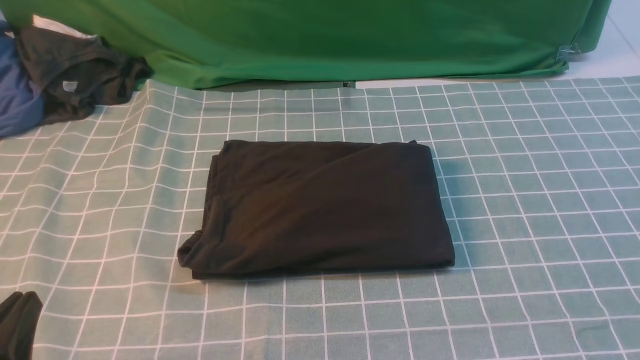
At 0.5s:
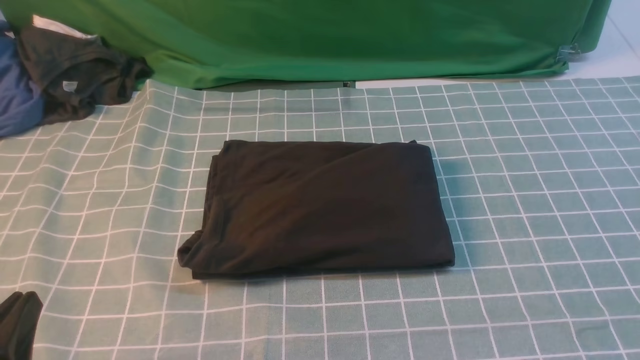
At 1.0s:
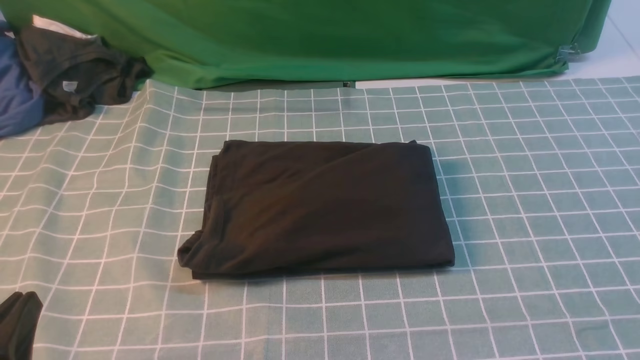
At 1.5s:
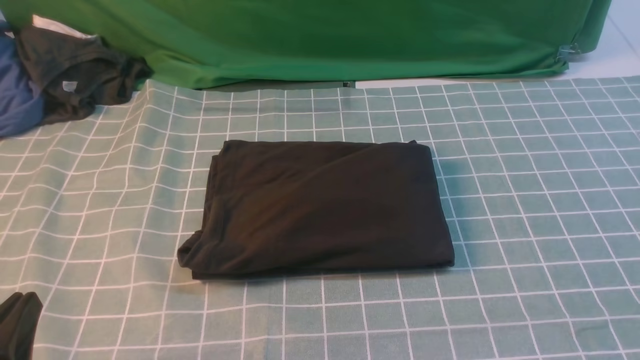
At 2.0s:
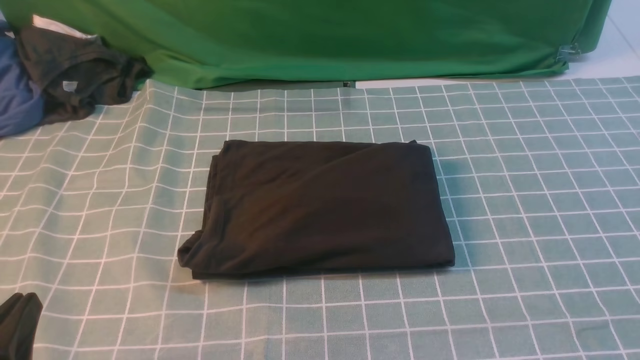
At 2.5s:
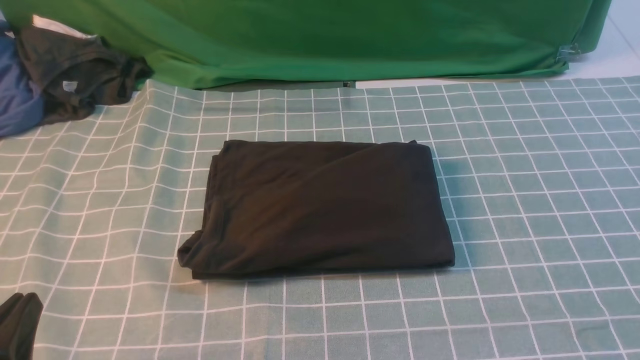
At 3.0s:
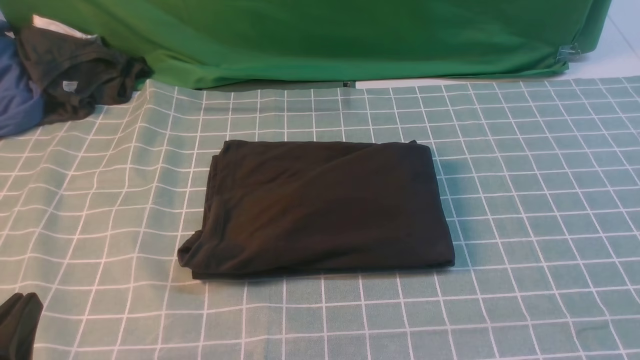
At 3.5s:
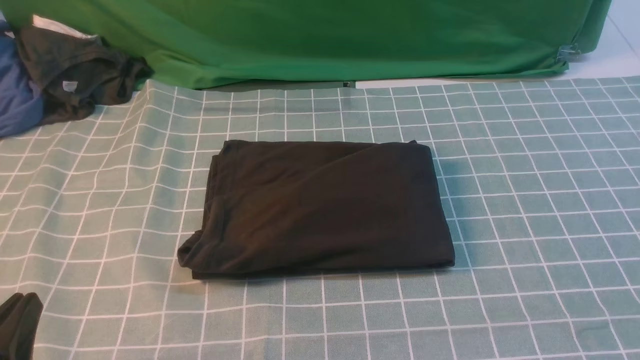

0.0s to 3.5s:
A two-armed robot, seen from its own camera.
2.0s to 3.5s: Both grippers stay put.

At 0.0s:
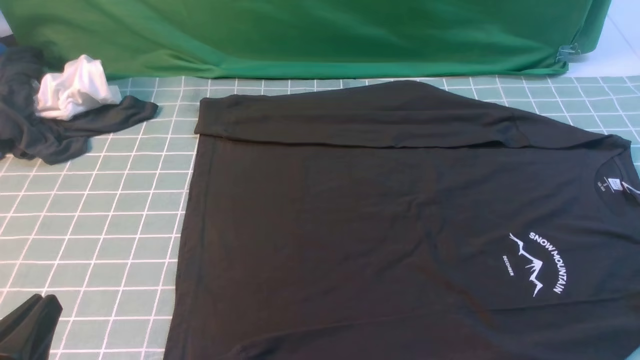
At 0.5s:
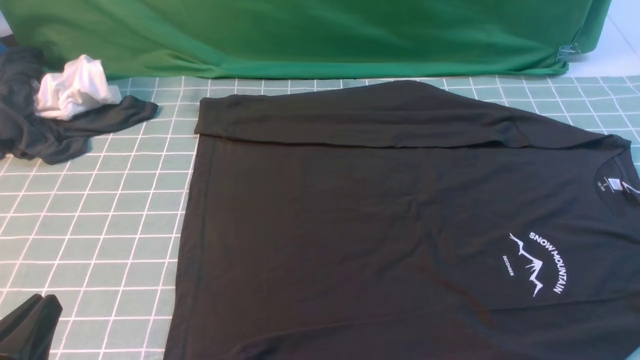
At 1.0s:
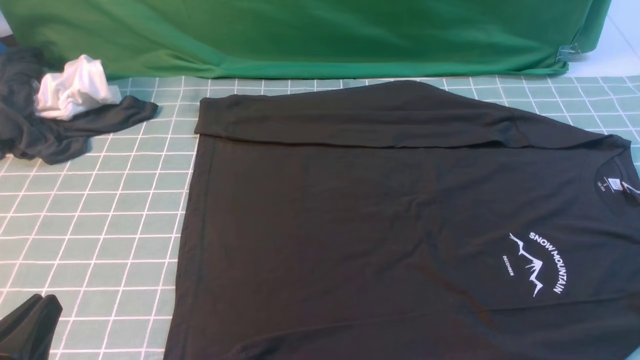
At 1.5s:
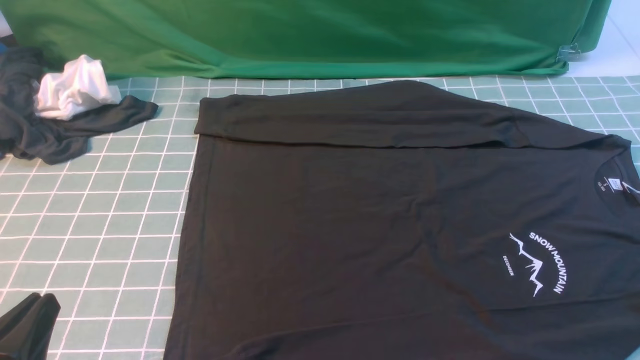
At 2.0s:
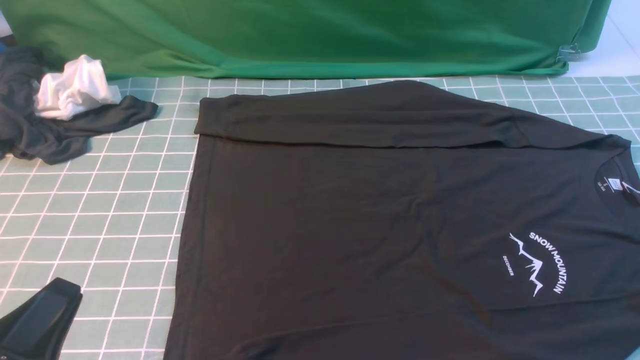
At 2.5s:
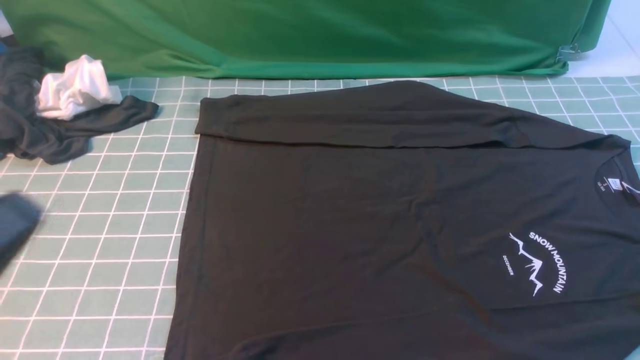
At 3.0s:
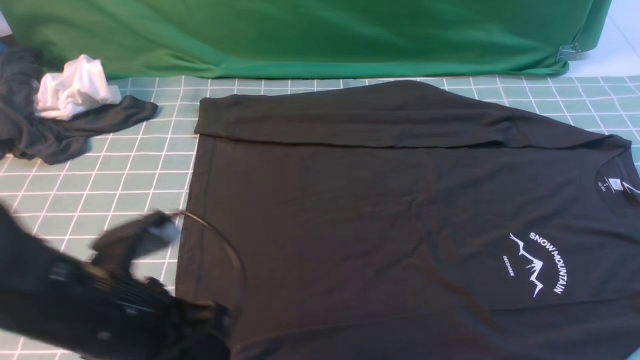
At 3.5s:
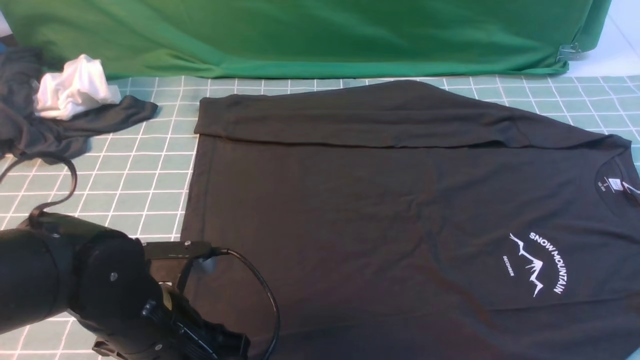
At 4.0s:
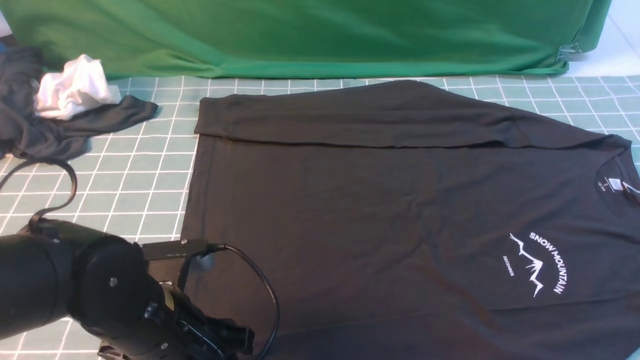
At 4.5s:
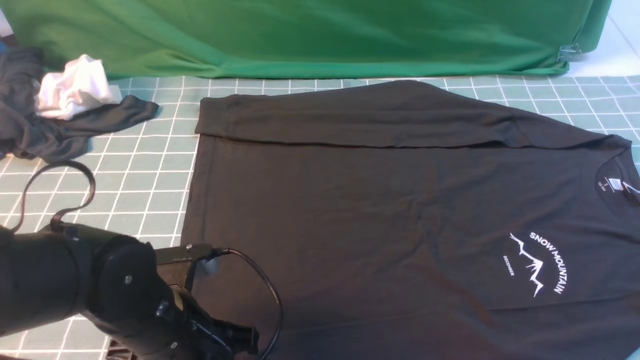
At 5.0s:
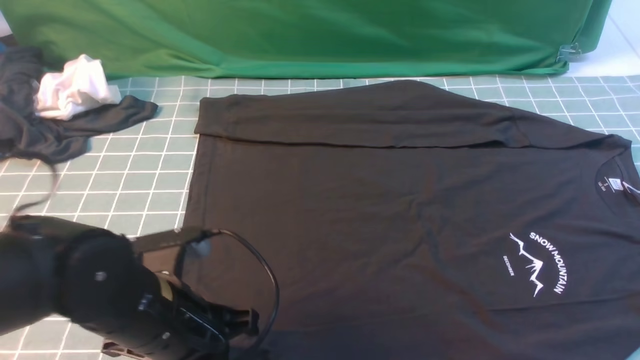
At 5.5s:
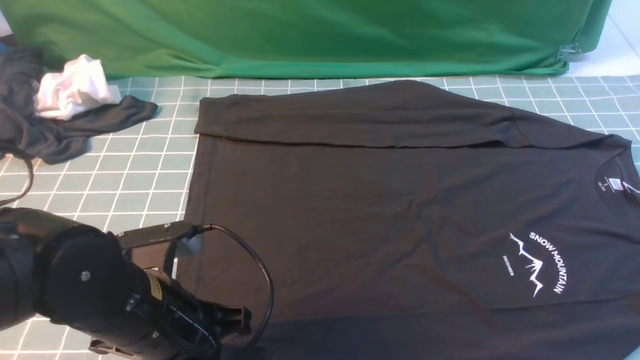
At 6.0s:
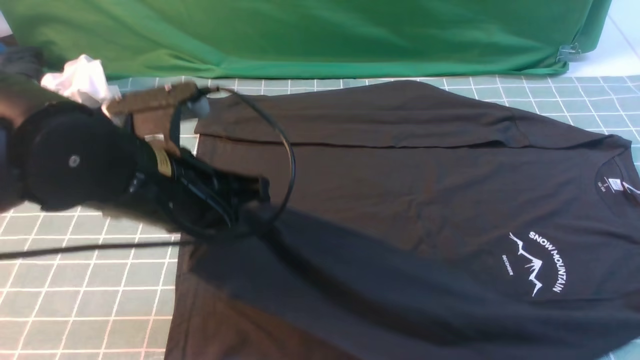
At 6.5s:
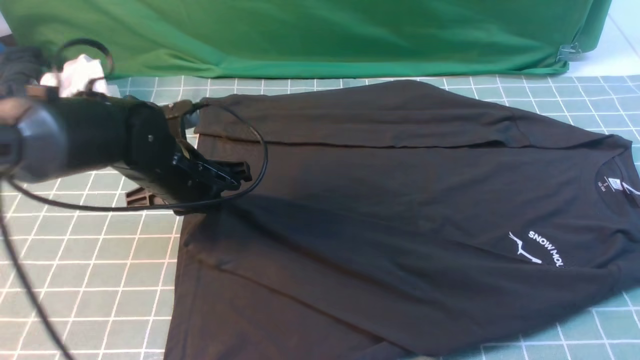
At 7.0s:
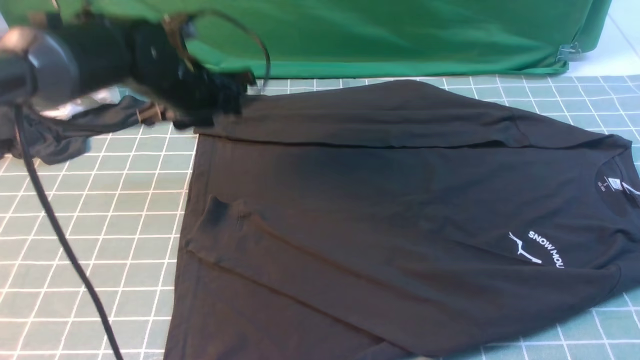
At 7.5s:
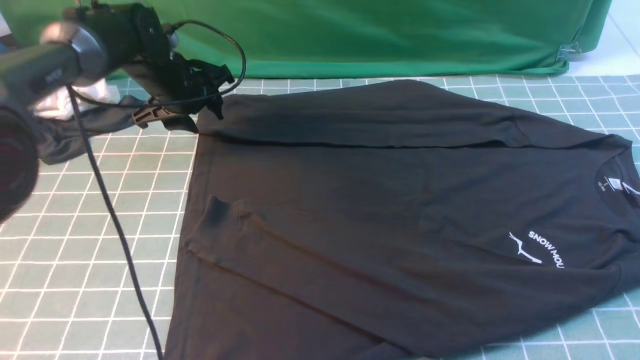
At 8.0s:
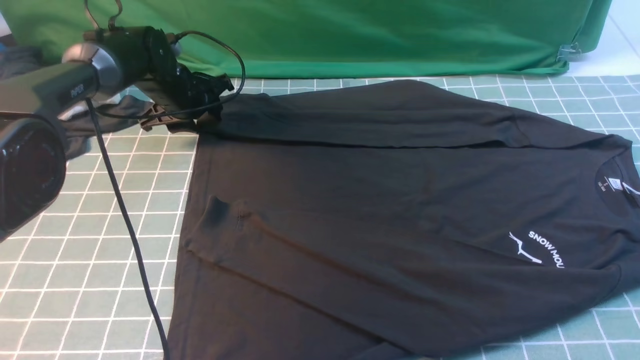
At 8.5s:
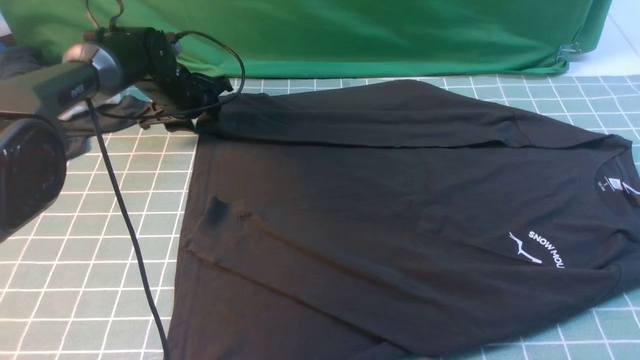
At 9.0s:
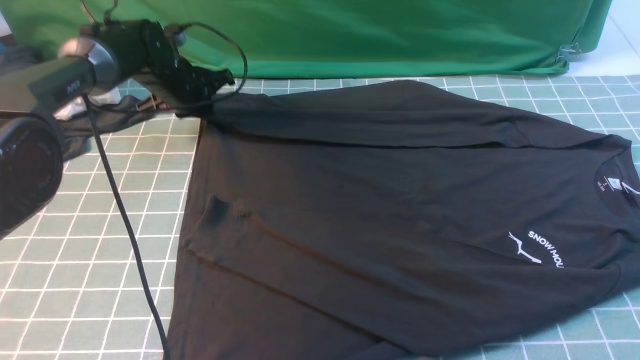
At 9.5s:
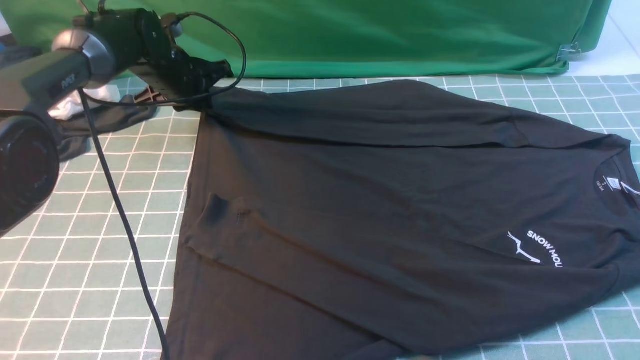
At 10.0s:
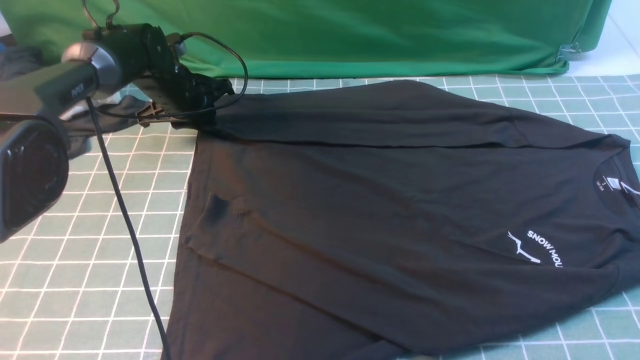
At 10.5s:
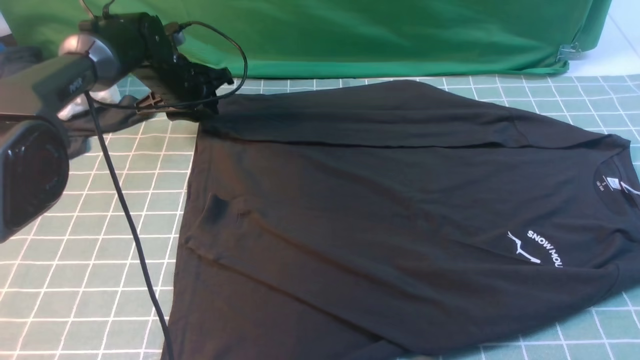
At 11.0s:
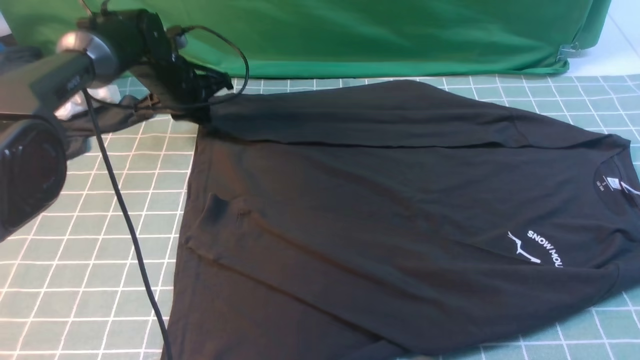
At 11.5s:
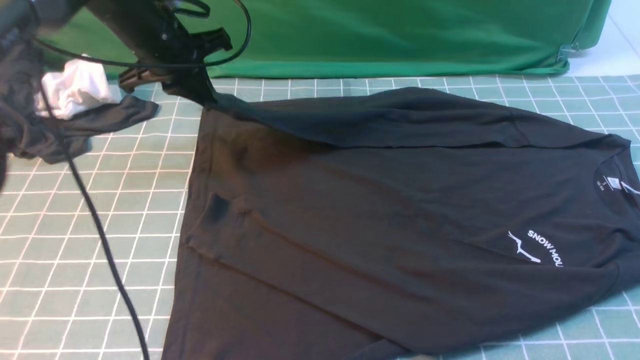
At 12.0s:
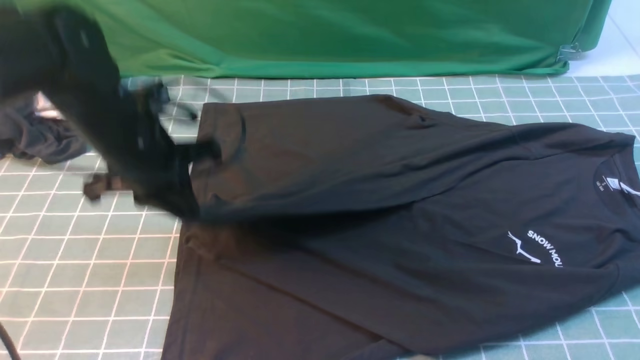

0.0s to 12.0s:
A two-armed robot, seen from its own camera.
Step, 0.0s to 5.5s: use the left arm to clamp the cuff closest to it.
Step, 6.0s to 6.5s: use the left arm to drag and place the cuff at the centered position on the left edge of the fabric.
Step, 7.0s to 10.5s: use the left arm to clamp the cuff farthest from it.
2.0s to 4.0s: The left gripper travels forward and to the right by some 15 cm, moves about 10 cm upward and comes back, and opens its fingers; the right gripper heads upward, covering about 15 cm.
4.0s to 6.0s: The left gripper goes roughly 10 cm upward and forward, and closes its fingers.
6.0s to 8.0s: The left gripper heads forward and downward, covering roughly 30 cm, and opens.
8.0s to 10.0s: The grippers move only a little.
10.0s to 12.0s: The left gripper heads backward and upward, covering approximately 20 cm.

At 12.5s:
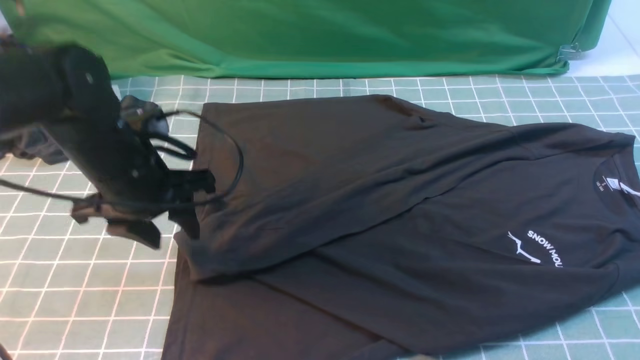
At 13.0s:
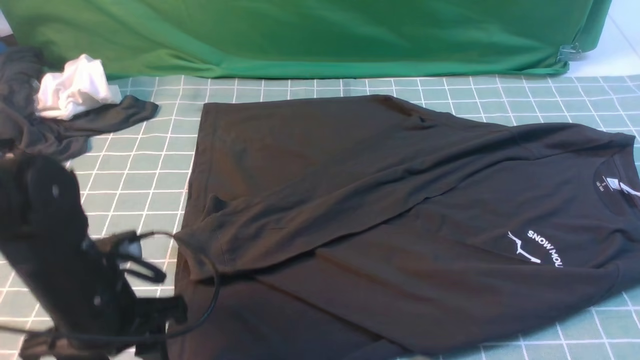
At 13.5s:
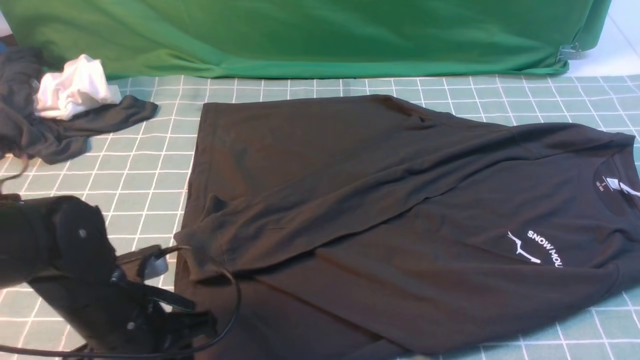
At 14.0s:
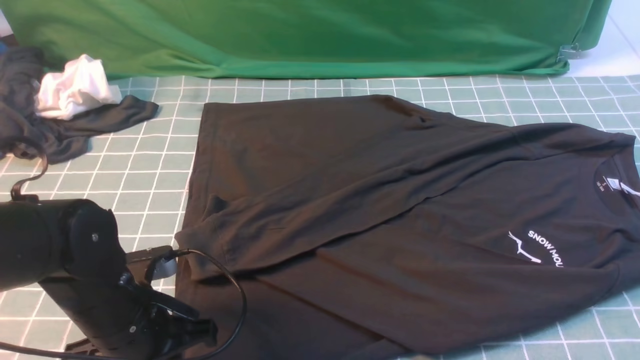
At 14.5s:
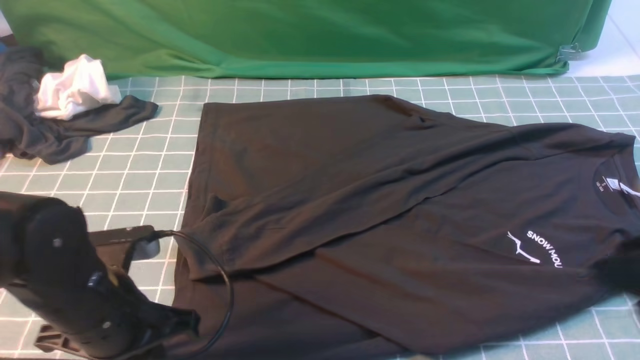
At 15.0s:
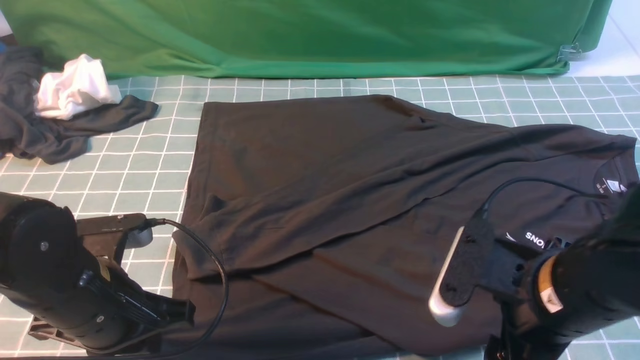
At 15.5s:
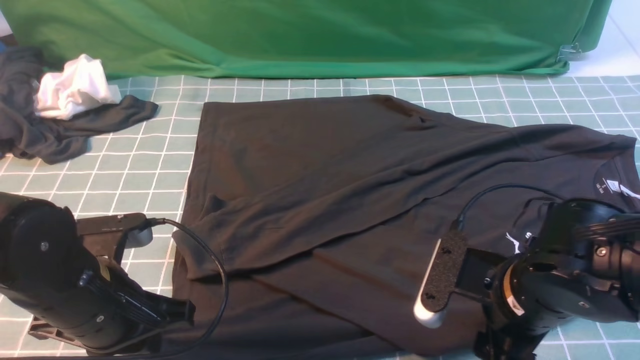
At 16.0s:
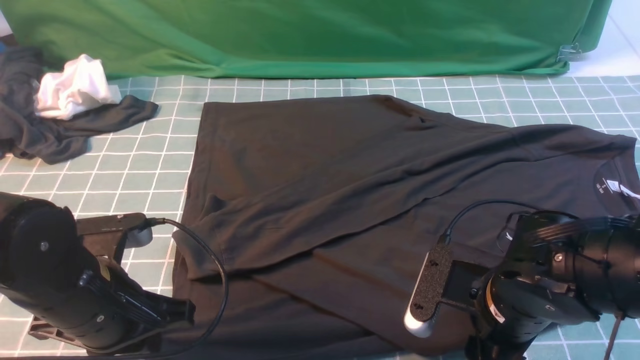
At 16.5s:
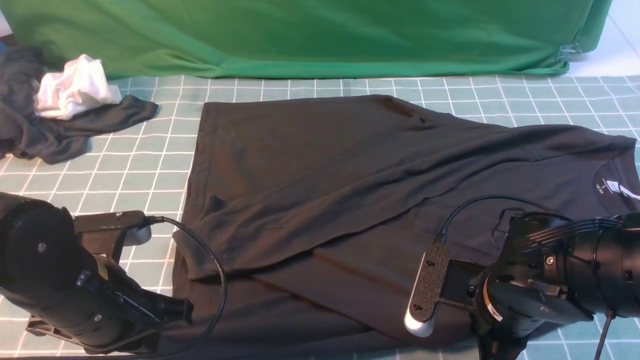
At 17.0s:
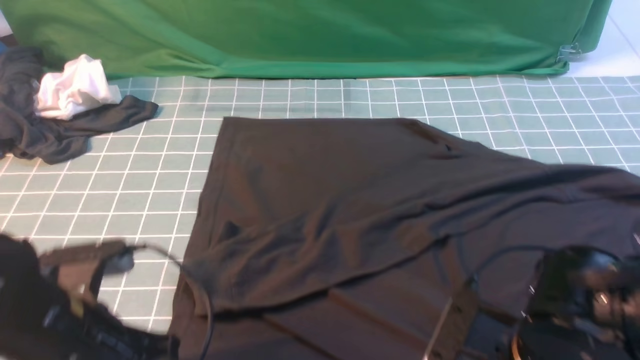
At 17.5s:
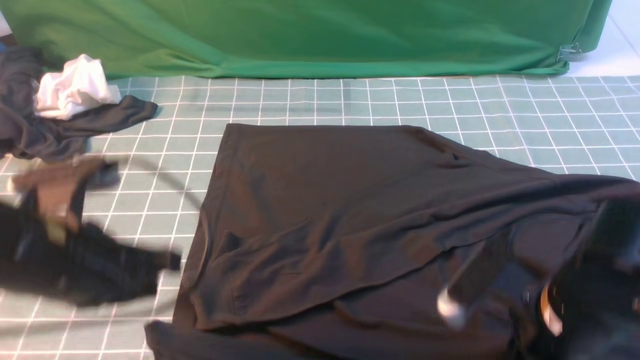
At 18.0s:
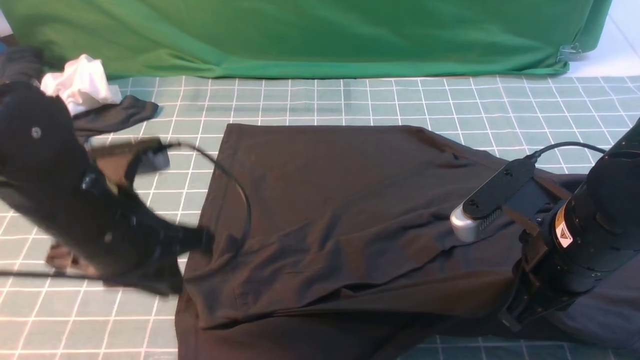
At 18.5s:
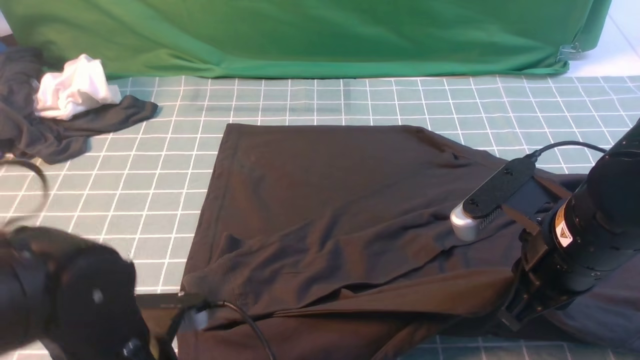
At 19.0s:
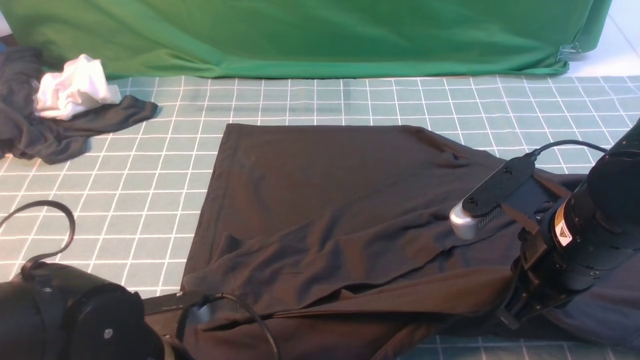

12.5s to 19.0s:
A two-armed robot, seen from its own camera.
Step, 12.5s to 16.5s: use both arms simultaneously to clamp the lower edge of the clothing fabric.
12.5s to 14.5s: The right gripper shifts some 10 cm downward, to the left and forward, while the left gripper goes approximately 10 cm backward, and closes its fingers.
14.5s to 17.0s: The right gripper travels downward and to the left by approximately 15 cm, and closes up.
17.0s to 19.0s: The right gripper travels upward and forward by approximately 10 cm. Meanwhile the left gripper shifts approximately 5 cm to the right, and opens.
